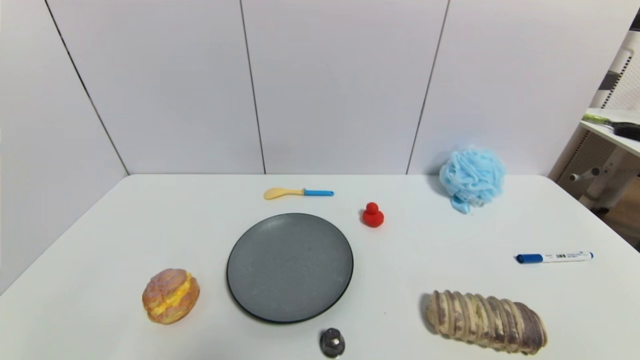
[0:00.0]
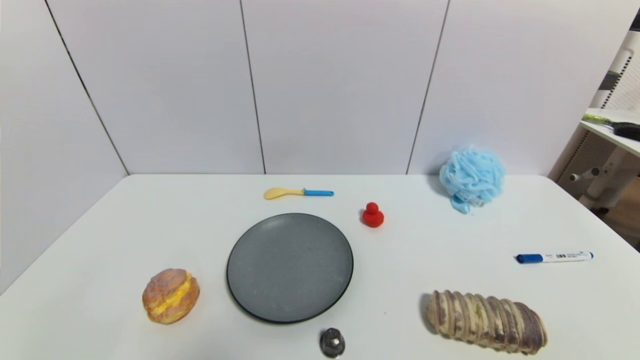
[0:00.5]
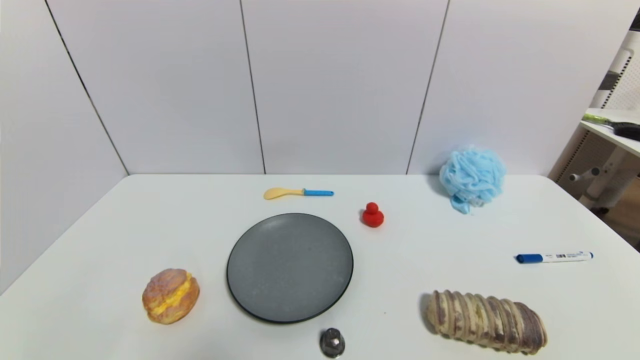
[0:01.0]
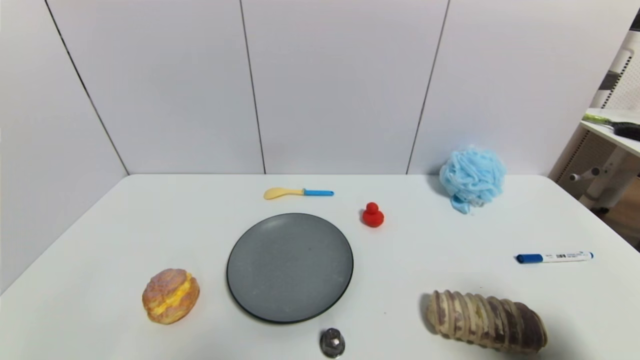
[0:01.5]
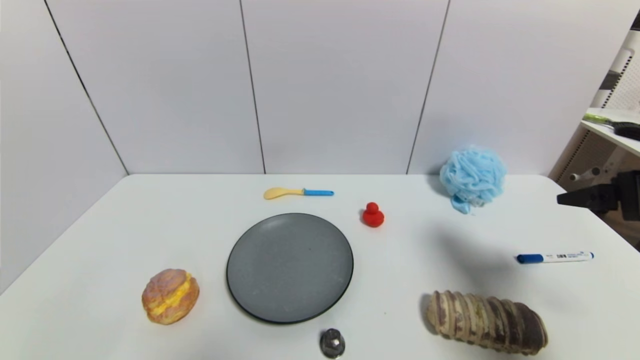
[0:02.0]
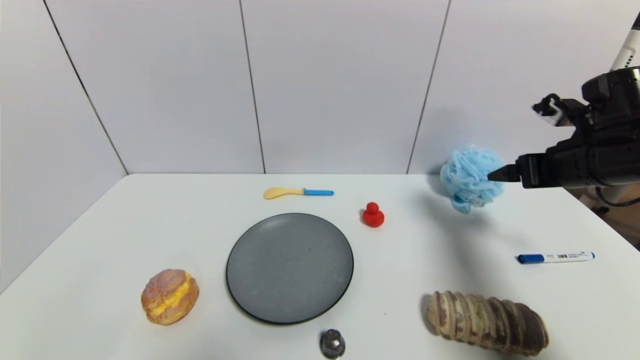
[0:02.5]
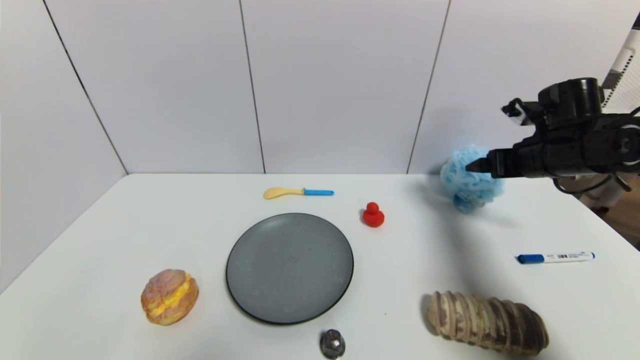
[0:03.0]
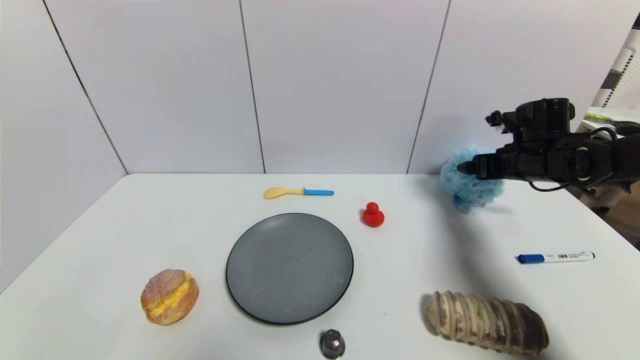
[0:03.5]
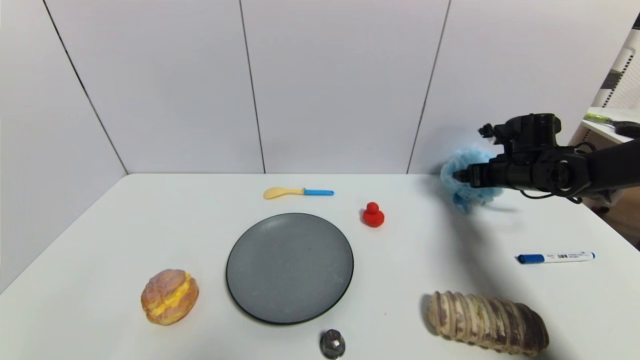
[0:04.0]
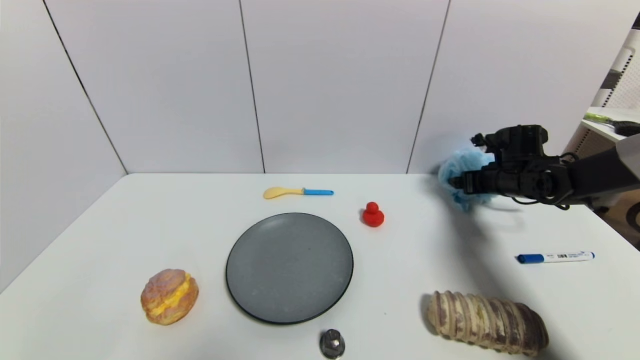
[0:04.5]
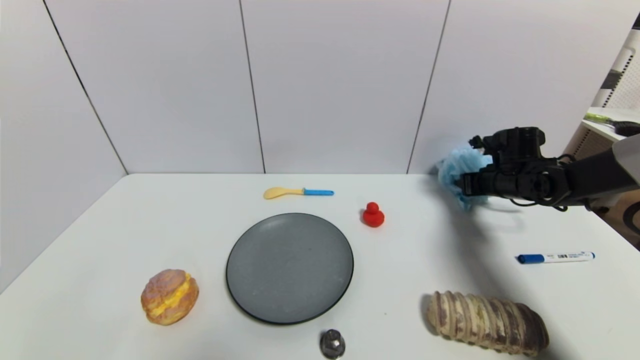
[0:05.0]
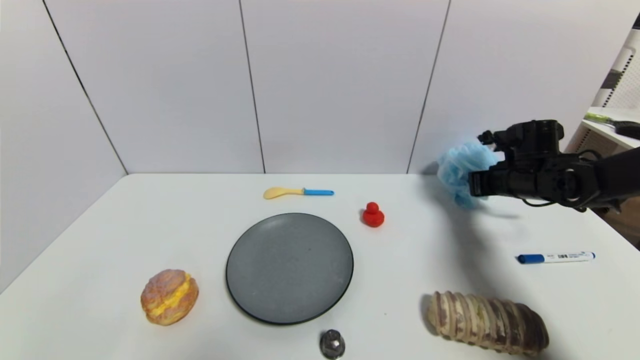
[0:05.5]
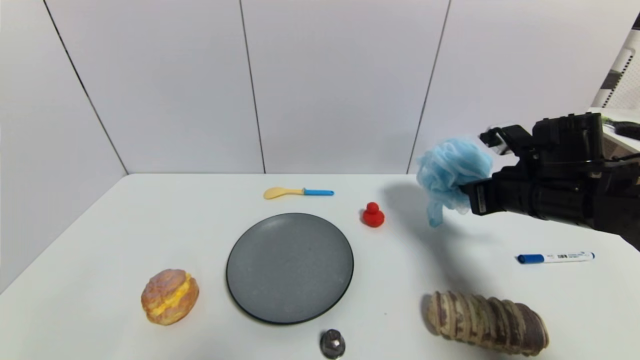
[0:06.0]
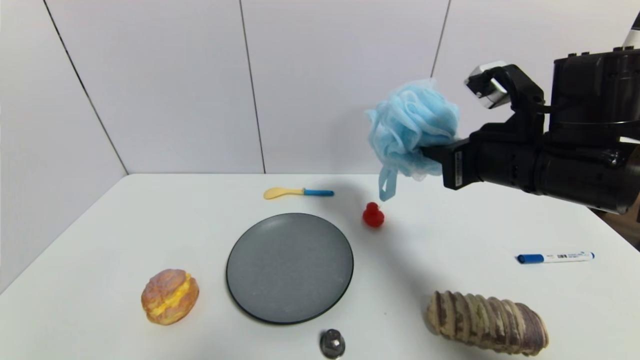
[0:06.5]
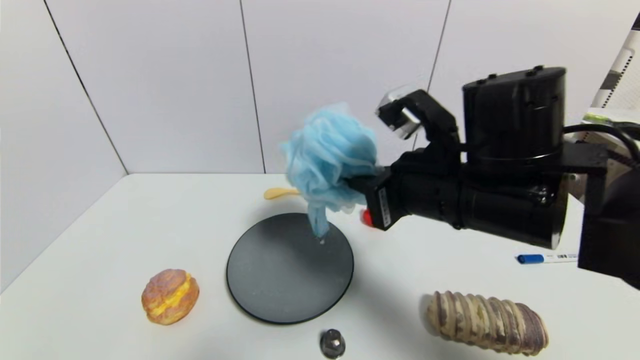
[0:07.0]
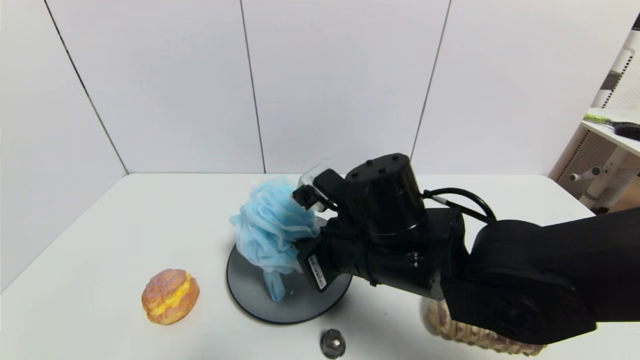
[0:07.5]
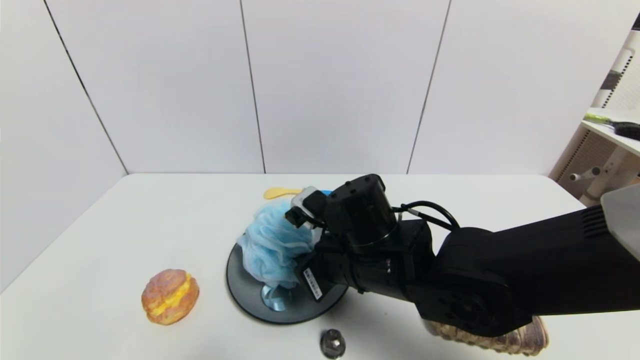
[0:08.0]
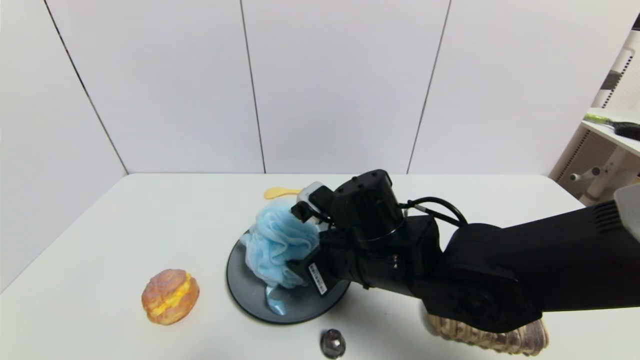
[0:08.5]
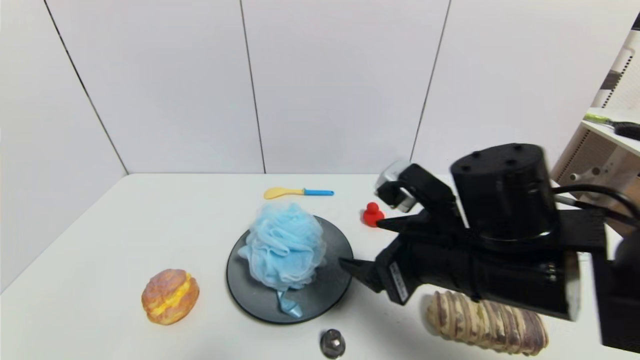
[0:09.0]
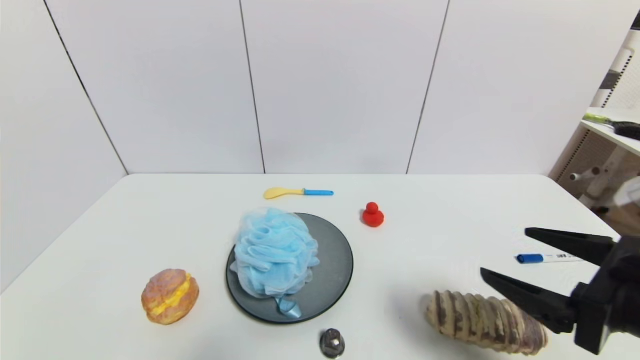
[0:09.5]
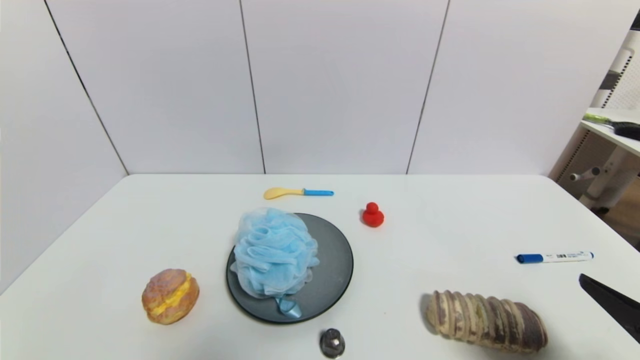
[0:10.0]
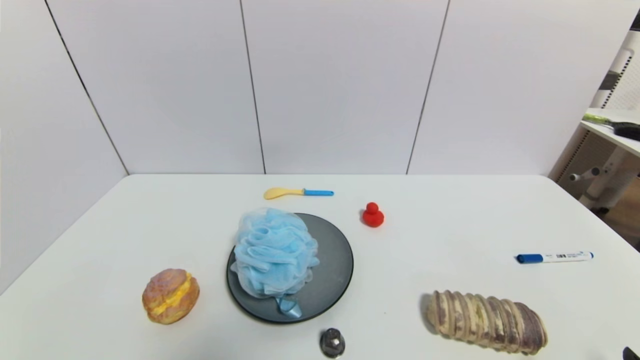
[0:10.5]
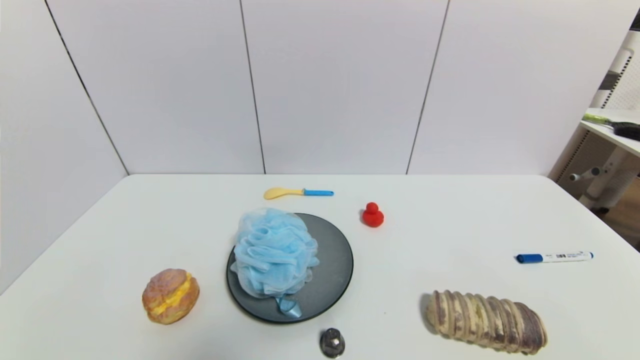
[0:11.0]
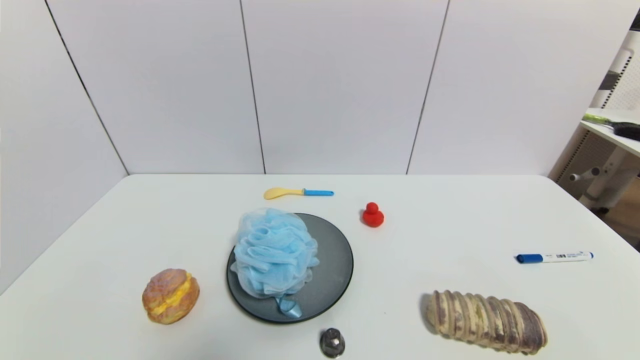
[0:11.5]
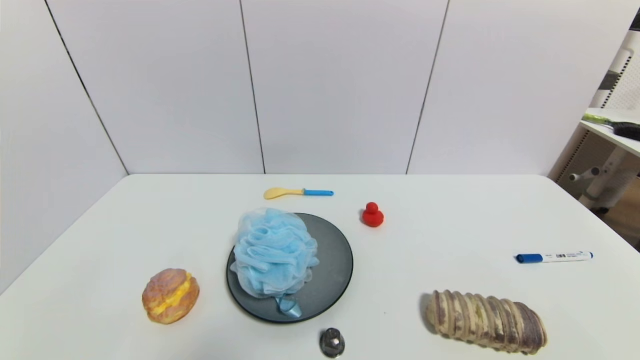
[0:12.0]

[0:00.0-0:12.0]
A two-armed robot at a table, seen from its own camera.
Task of the whole recording: use a gripper to pick the target object and place on the gray plate.
Step, 0:00.0 to 0:05.0: Grasp the shower sphere with the right gripper.
Step, 0:05.5 to 0:08.5: Place the shower sphere on the gray plate with the right gripper.
0:00.0 to 0:02.0: The right gripper moves forward and upward, approximately 30 cm.
0:02.0 to 0:04.0: The right gripper moves forward and downward, approximately 25 cm.
0:04.0 to 0:06.0: The right gripper travels backward and to the left by about 15 cm, and closes up.
0:06.0 to 0:08.0: The right gripper goes roughly 20 cm to the left.
0:08.0 to 0:10.0: The right gripper shifts roughly 35 cm to the right and backward, and opens its fingers.
0:10.0 to 0:12.0: The right gripper is displaced downward and backward by roughly 15 cm.

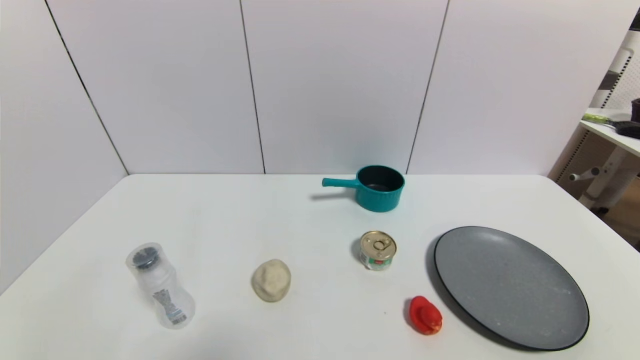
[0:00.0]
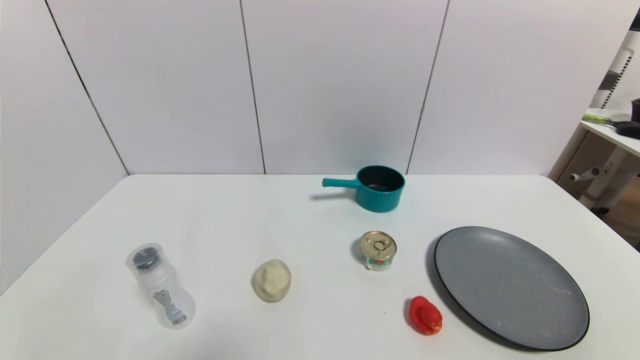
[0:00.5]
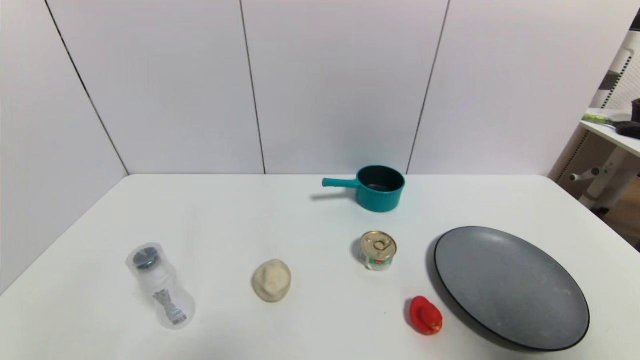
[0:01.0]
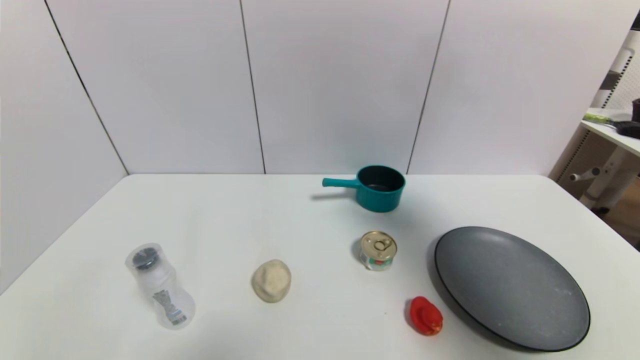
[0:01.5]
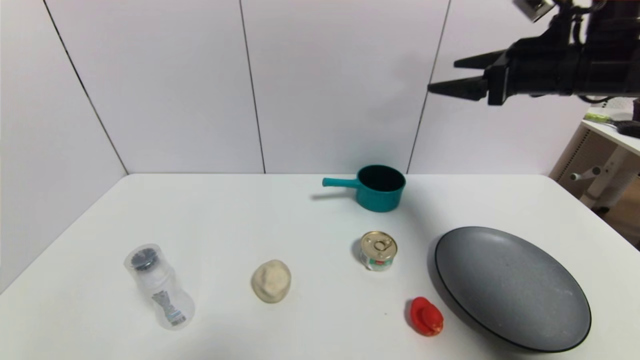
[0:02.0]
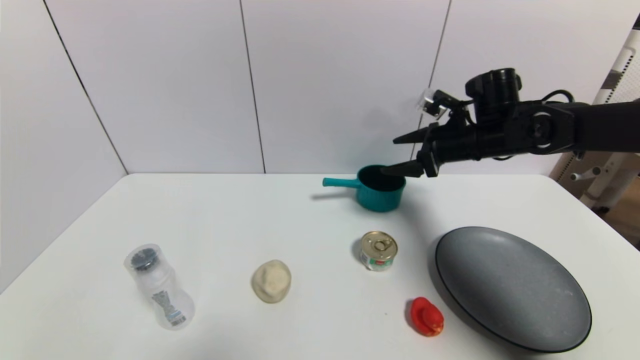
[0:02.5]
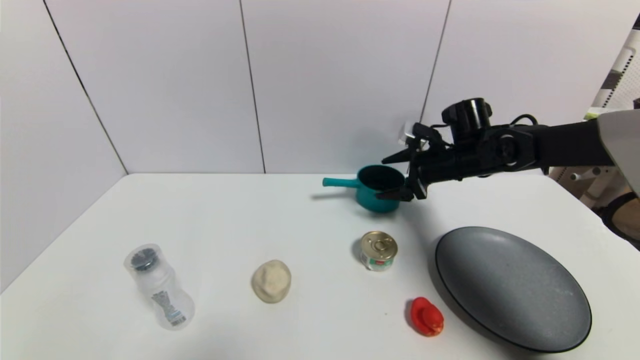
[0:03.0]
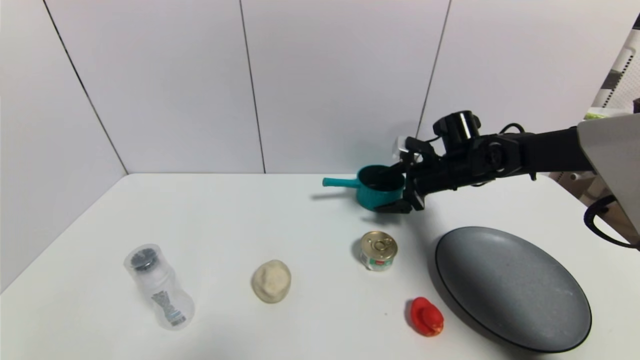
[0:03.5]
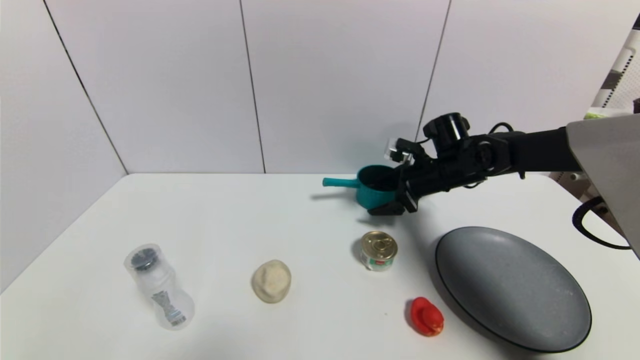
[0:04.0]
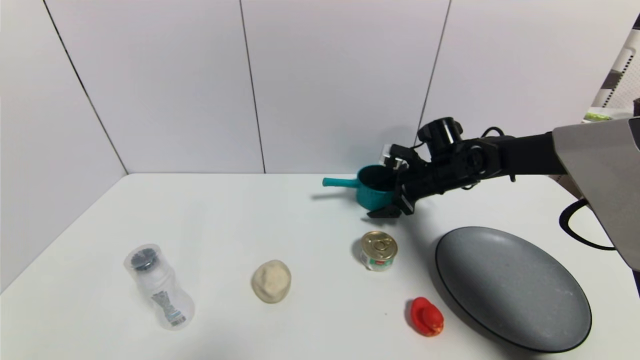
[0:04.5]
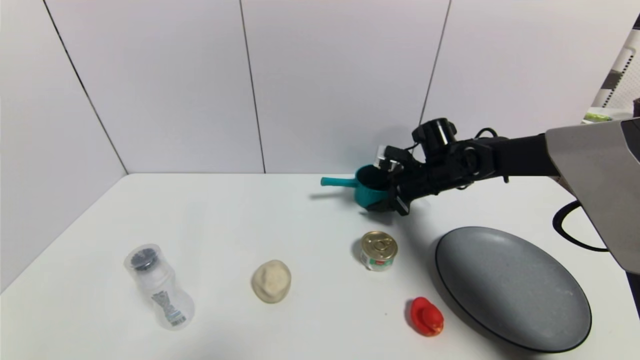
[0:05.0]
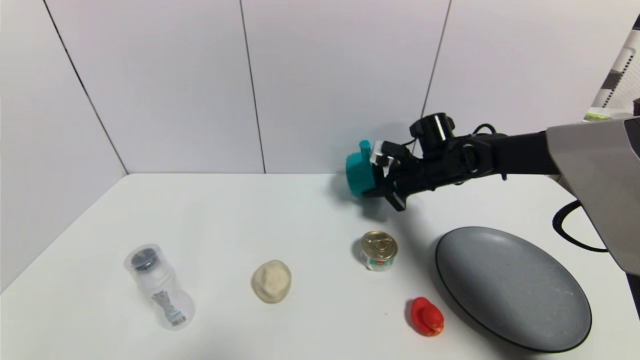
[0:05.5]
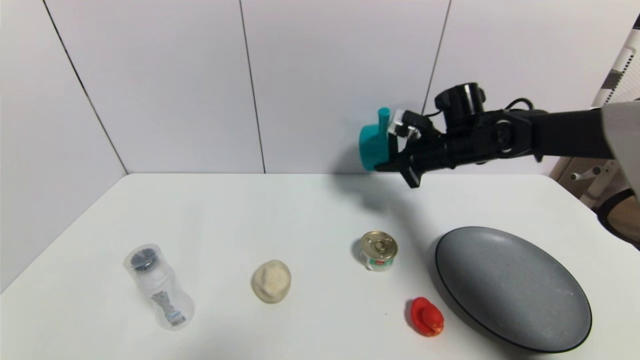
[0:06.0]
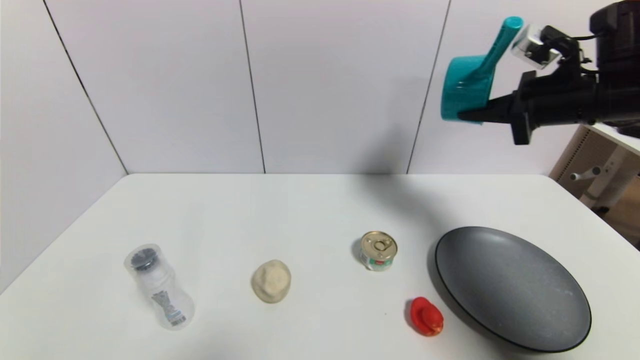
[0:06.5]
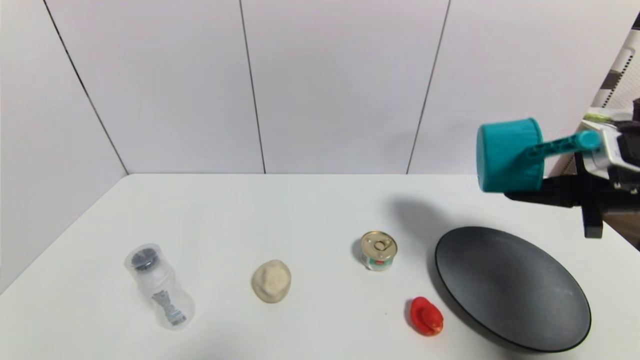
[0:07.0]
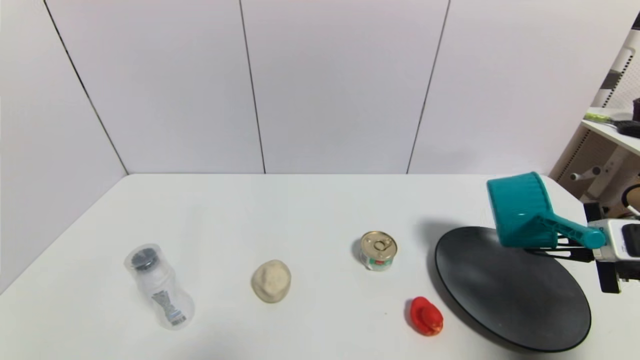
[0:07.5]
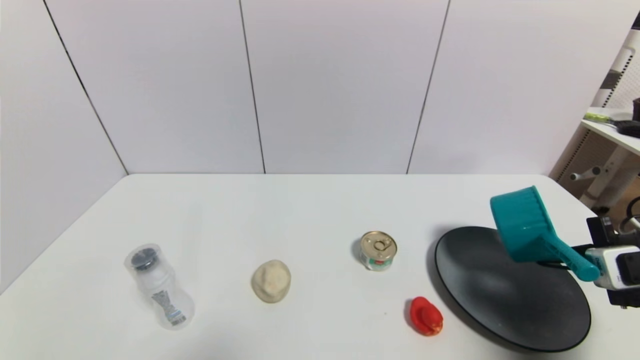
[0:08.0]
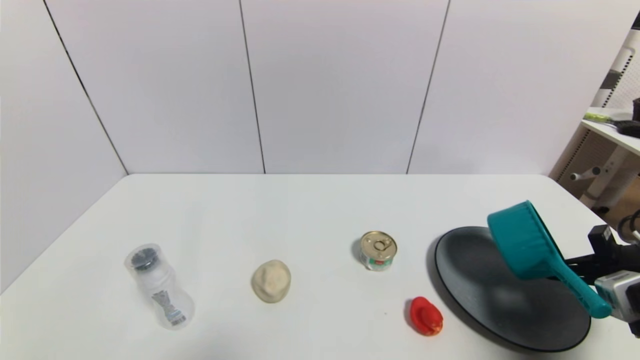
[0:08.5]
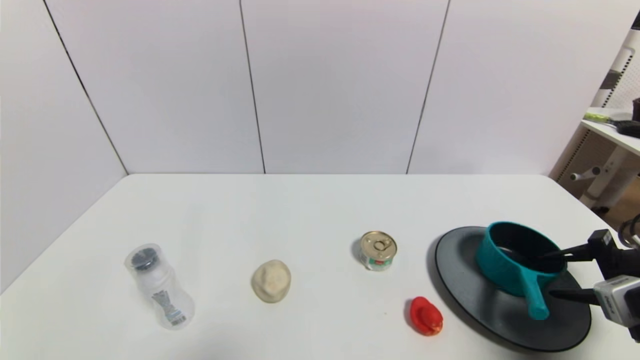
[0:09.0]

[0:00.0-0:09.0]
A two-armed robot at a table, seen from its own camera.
Task of the whole recording: use a gripper to pick the target object and place on the gray plate.
Step, 0:00.0 to 0:05.0: Grasp the blue pot with the right gripper.
0:00.0 to 0:02.0: The right gripper is displaced forward and upward by some 40 cm.
0:02.0 to 0:04.5: The right gripper travels downward and forward by some 20 cm.
0:04.5 to 0:07.0: The right gripper travels backward, to the right and upward by approximately 25 cm, and closes its fingers.
0:07.0 to 0:09.0: The right gripper shifts approximately 10 cm downward, and opens.
